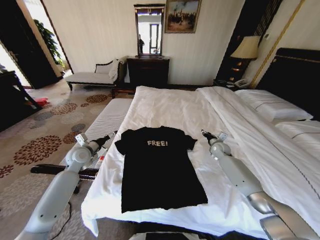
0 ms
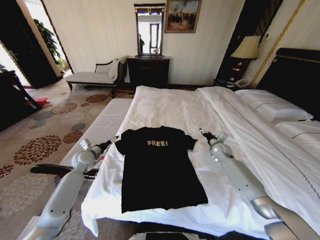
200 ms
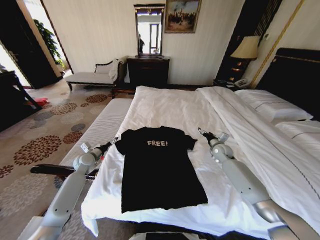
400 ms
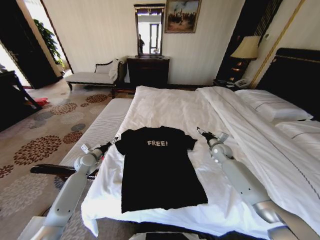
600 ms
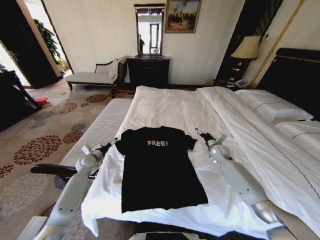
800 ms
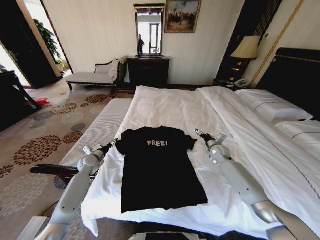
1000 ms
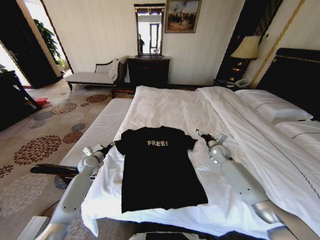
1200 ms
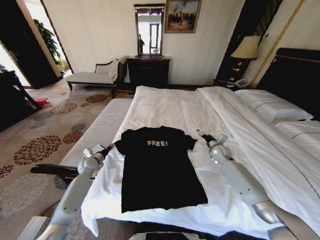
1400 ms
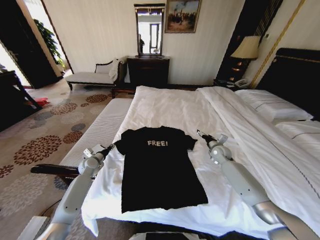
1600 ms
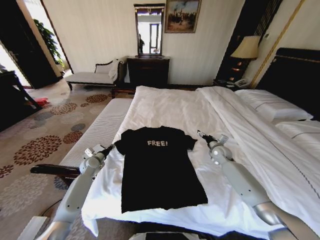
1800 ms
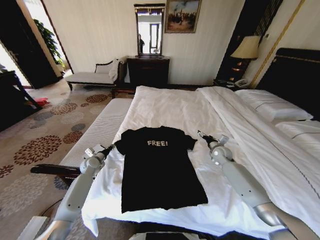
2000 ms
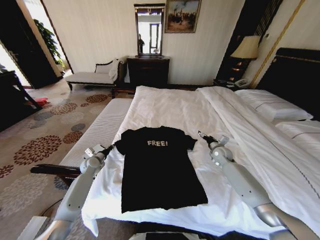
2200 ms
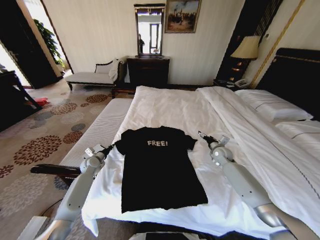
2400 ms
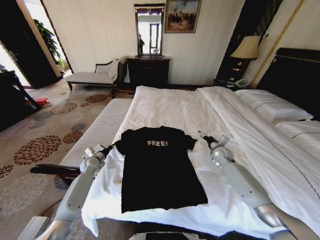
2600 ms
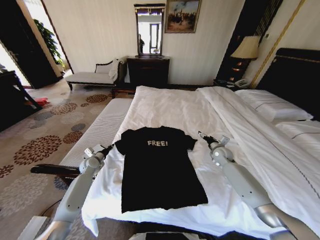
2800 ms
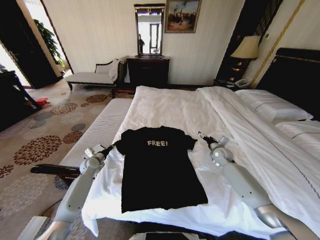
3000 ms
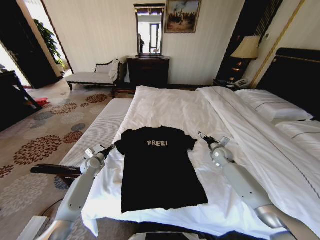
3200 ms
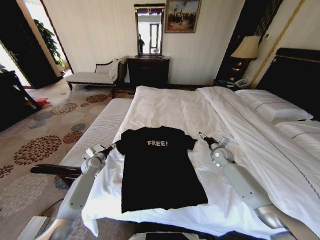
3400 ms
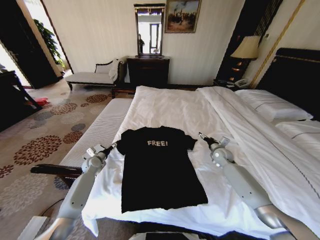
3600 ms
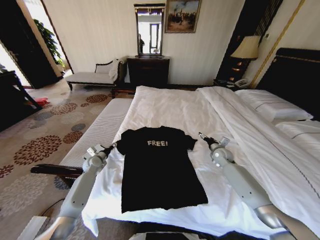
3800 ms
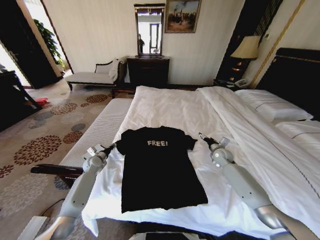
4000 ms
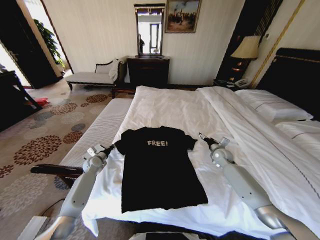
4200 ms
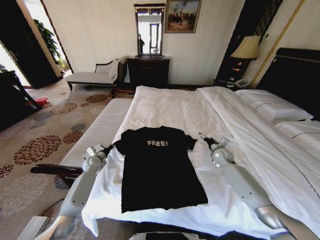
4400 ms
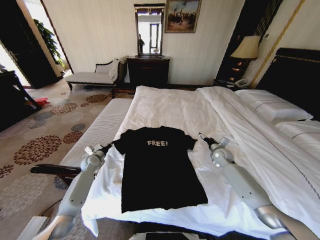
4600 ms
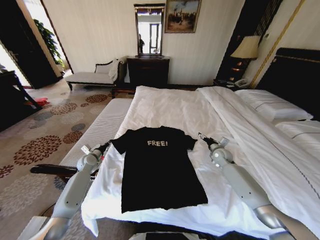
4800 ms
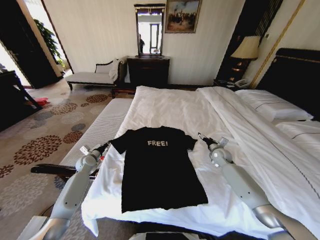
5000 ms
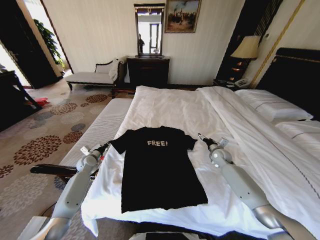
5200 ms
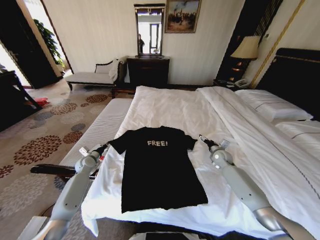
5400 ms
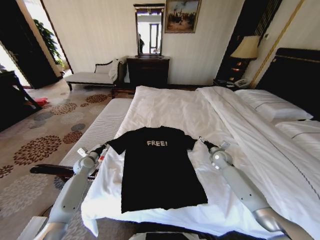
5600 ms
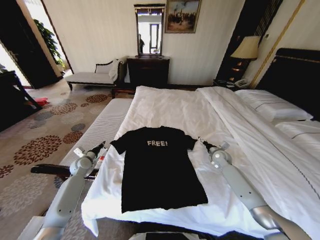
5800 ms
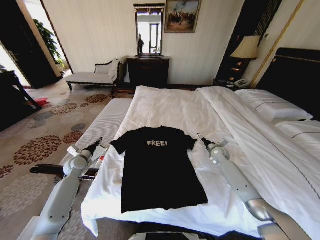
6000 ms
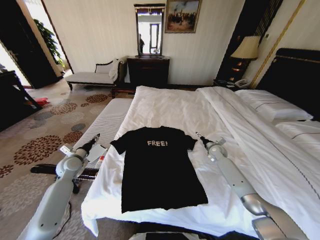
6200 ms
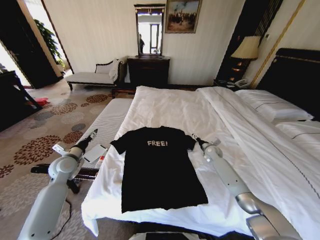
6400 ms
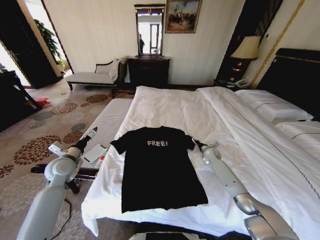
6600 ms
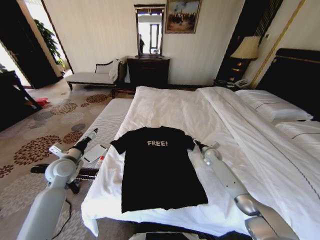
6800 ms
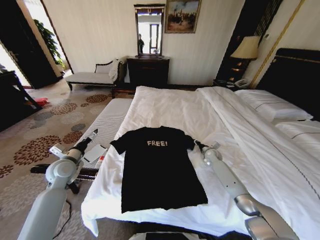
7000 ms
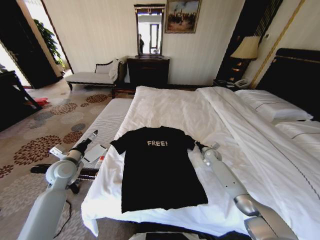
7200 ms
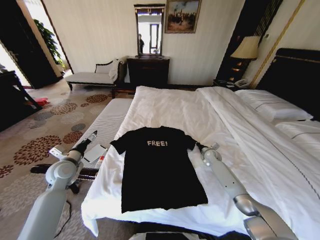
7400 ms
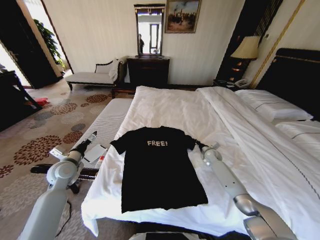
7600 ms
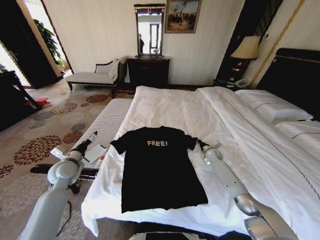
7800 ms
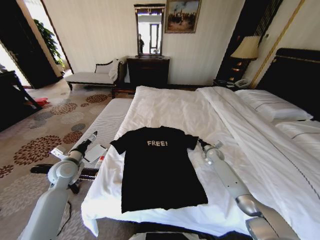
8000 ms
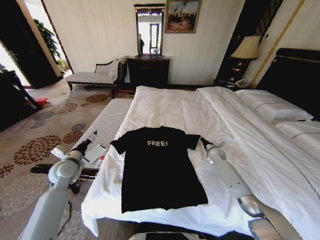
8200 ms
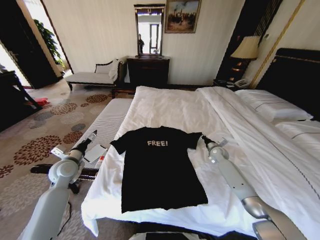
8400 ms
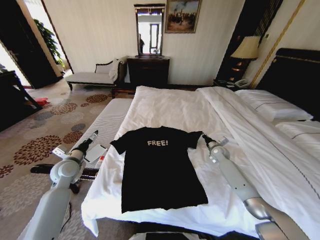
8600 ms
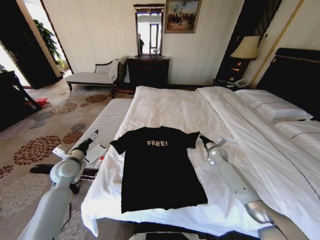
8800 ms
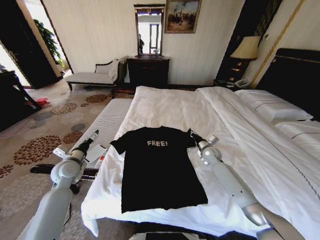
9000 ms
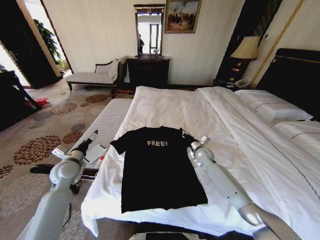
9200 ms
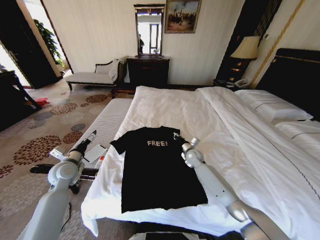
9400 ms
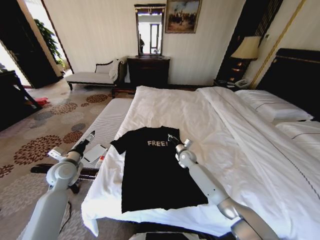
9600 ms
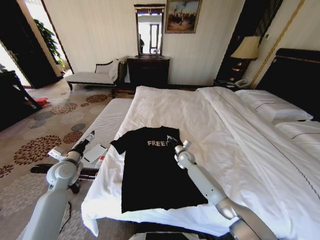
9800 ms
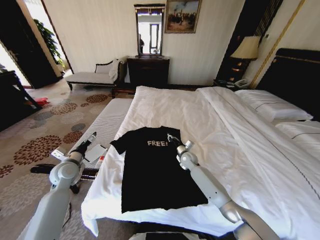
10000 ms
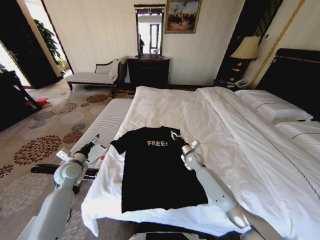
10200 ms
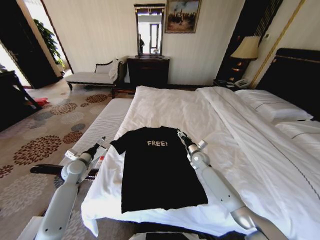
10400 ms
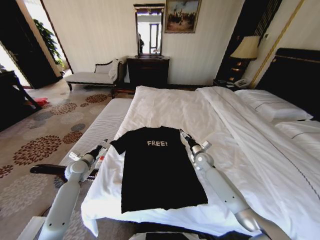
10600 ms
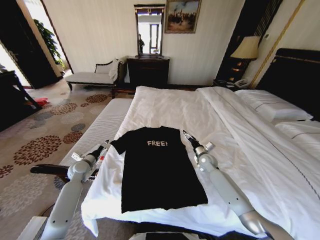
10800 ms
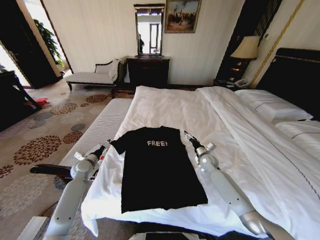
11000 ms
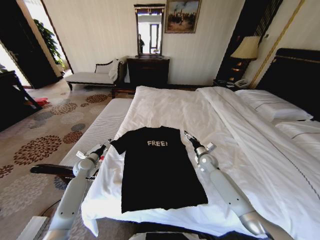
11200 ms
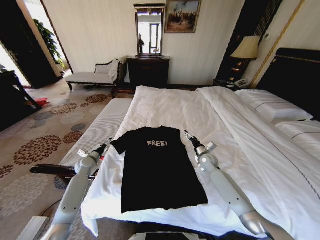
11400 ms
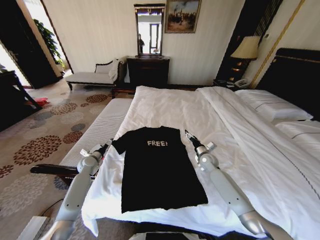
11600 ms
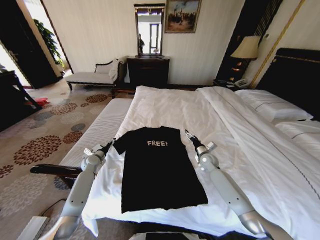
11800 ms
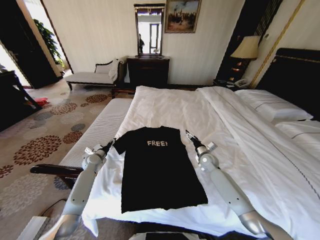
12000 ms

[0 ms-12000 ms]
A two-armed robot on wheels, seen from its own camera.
Task of the whole recording: Fold the clothes on the bed.
0 ms to 1600 ms: The right gripper opens its fingers, while the left gripper moves downward, some 15 cm, and closes its fingers.
1600 ms to 3000 ms: Both grippers stay about where they are.
3000 ms to 4400 ms: The left gripper opens, then closes once more.
4400 ms to 6000 ms: The left gripper moves upward, approximately 5 cm.
6000 ms to 7600 ms: The left gripper shifts roughly 10 cm backward and upward, and opens up; the right gripper moves some 5 cm, and closes its fingers.
7600 ms to 9000 ms: The right gripper moves upward, about 5 cm.
9000 ms to 10400 ms: The left gripper moves about 5 cm; the right gripper shifts about 5 cm to the left, and opens its fingers.
10400 ms to 12000 ms: The right gripper travels to the right by some 5 cm, while the left gripper heads forward and downward, covering some 10 cm.

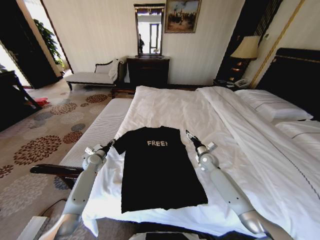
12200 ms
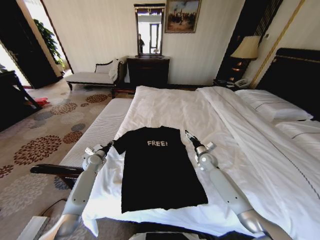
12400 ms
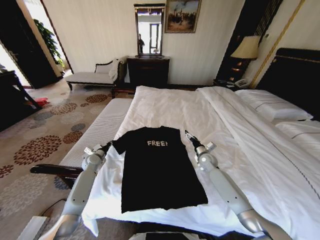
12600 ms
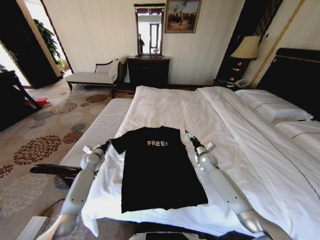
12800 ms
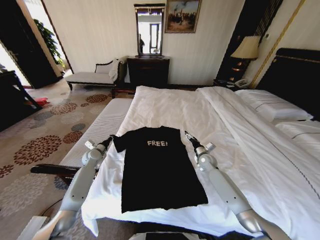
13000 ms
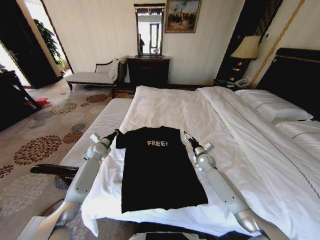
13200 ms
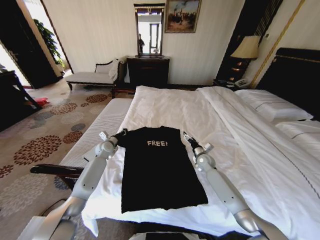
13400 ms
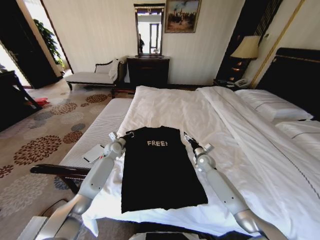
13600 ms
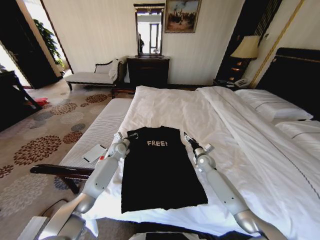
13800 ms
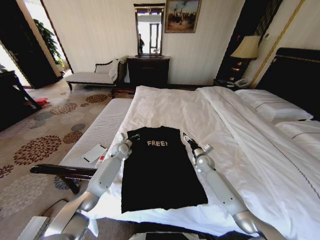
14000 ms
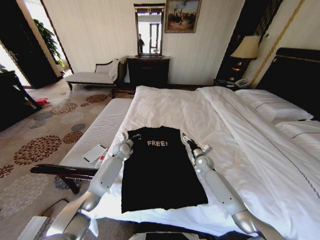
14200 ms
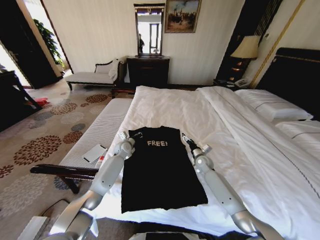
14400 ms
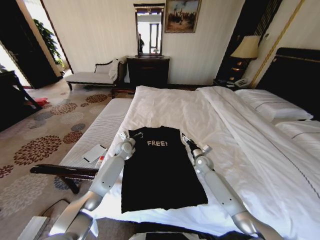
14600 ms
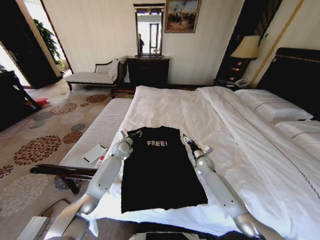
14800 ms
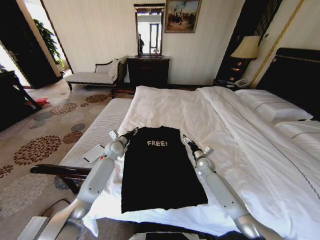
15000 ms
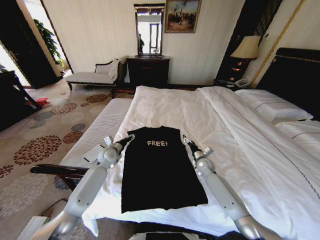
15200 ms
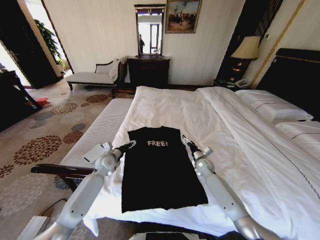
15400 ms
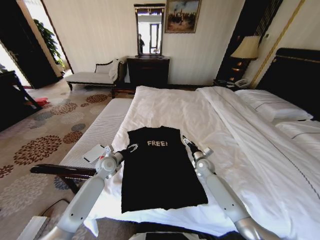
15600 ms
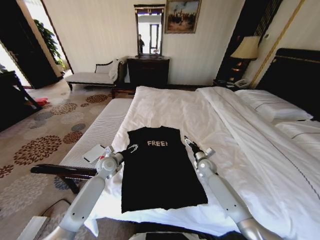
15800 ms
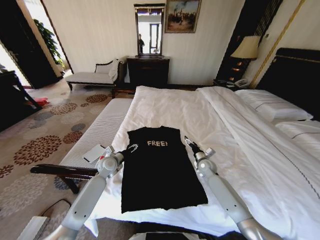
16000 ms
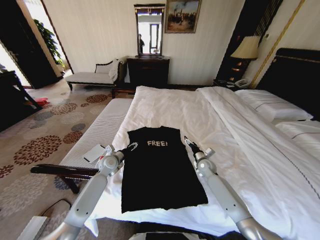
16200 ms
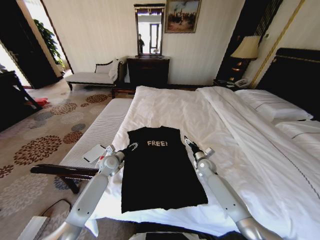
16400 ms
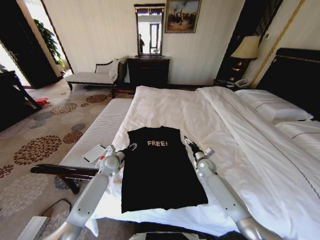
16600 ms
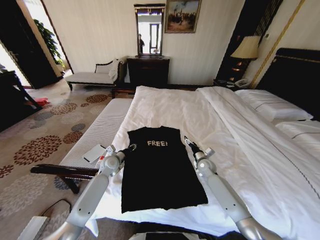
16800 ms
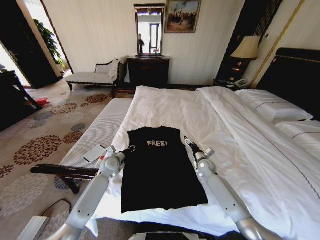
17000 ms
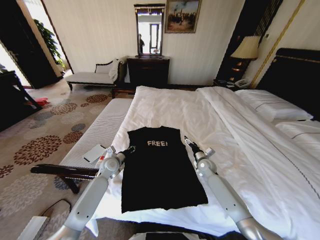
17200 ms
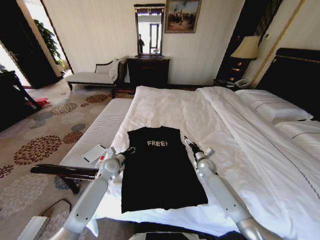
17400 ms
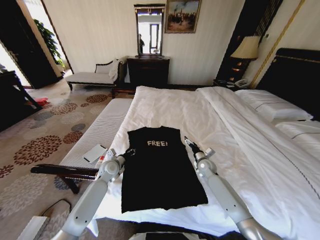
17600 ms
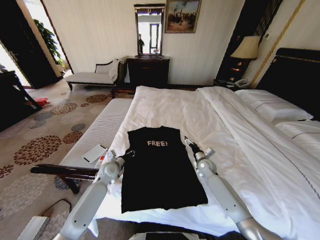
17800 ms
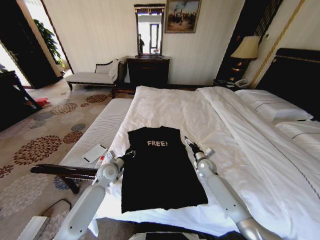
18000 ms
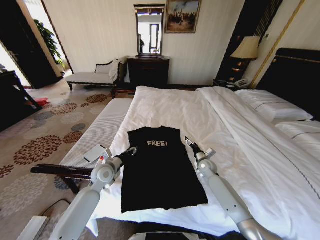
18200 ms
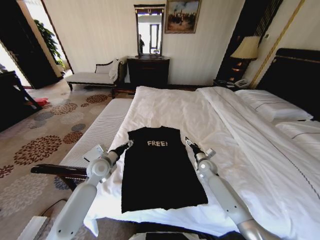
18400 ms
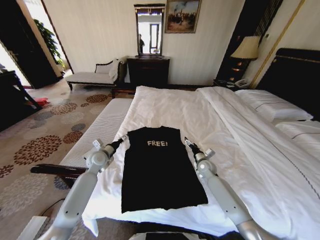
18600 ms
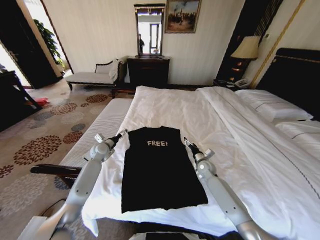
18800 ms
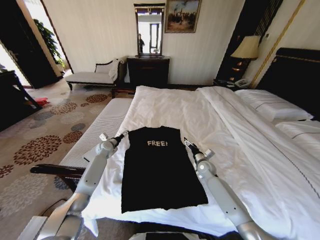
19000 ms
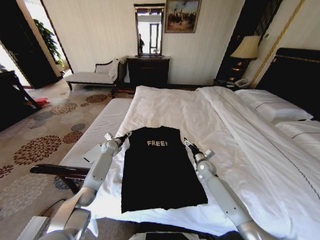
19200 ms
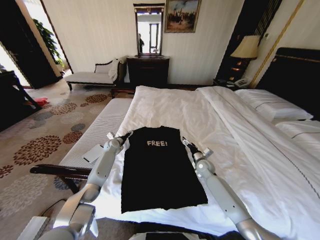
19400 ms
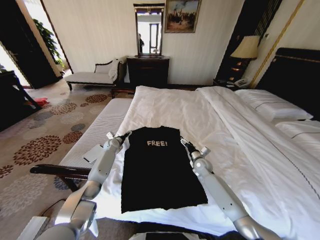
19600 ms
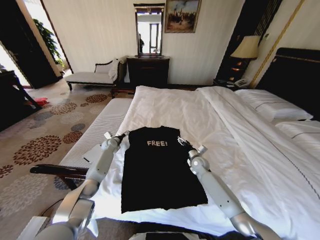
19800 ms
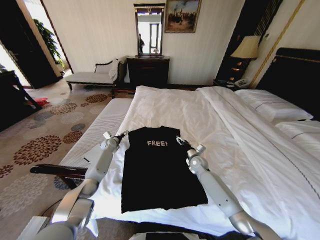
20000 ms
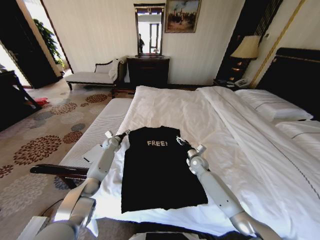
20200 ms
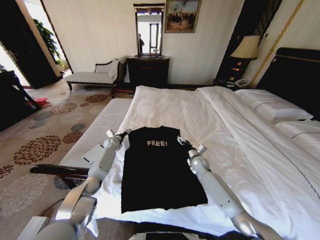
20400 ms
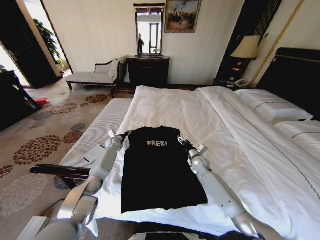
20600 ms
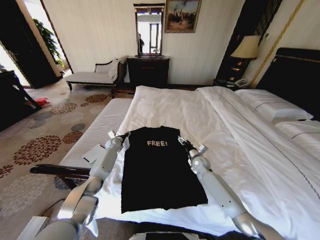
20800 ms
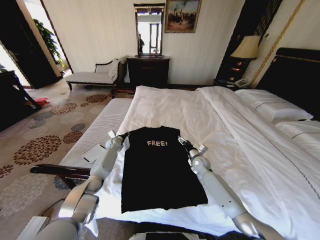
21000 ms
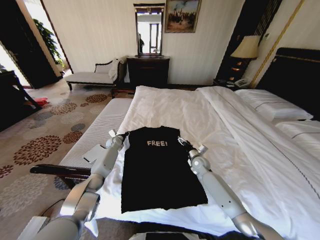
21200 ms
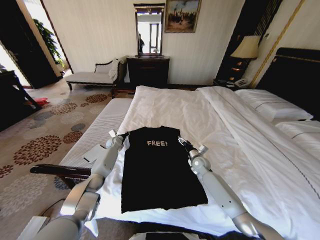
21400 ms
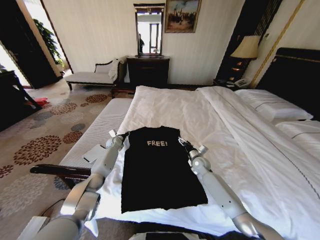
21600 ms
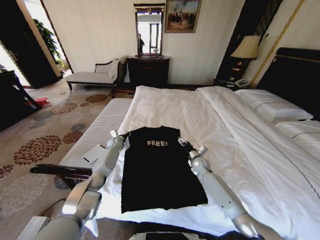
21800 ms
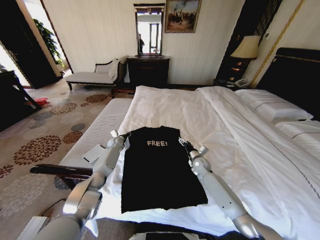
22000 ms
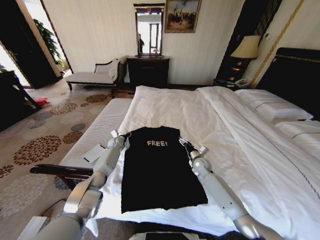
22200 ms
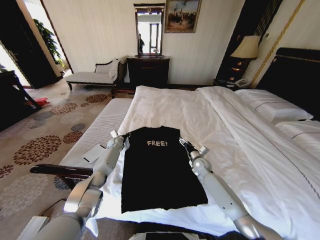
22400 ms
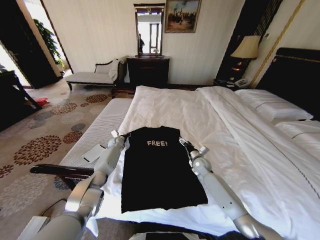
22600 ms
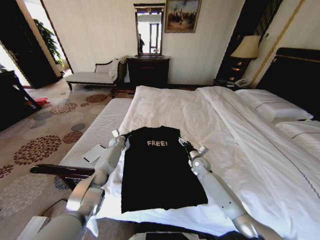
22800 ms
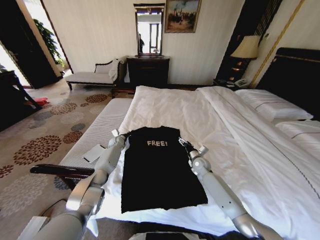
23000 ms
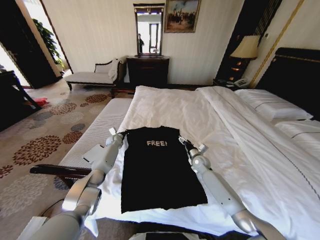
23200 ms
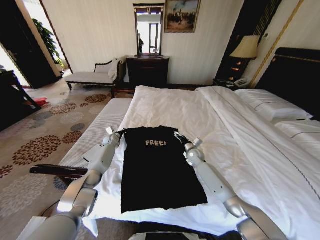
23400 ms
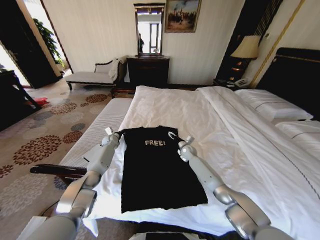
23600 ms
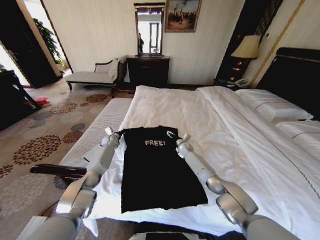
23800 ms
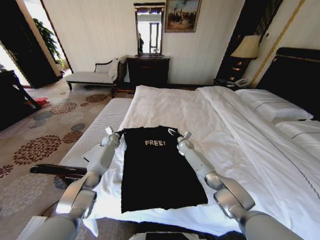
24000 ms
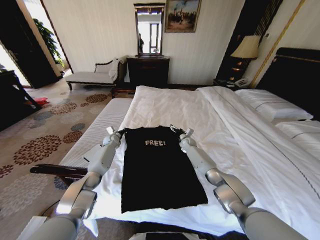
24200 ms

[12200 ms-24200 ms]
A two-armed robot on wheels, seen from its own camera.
Task of the whole recording: Fold the clothes on the bed.
12200 ms to 13800 ms: The left gripper goes approximately 15 cm to the right, and closes.
13800 ms to 15200 ms: The left gripper is displaced backward by some 5 cm, and opens up.
15200 ms to 16600 ms: There are only small adjustments of the grippers.
16600 ms to 18200 ms: The left gripper is displaced backward by about 5 cm, and closes, then reopens.
18200 ms to 19800 ms: The left gripper shifts some 20 cm forward, and opens.
19800 ms to 21200 ms: The left gripper closes its fingers.
21200 ms to 22600 ms: The grippers move only a little.
22600 ms to 24200 ms: The right gripper heads forward, covering some 15 cm.
